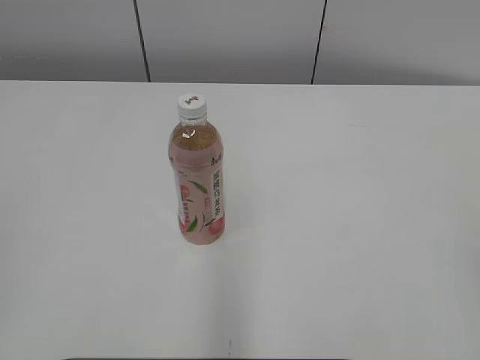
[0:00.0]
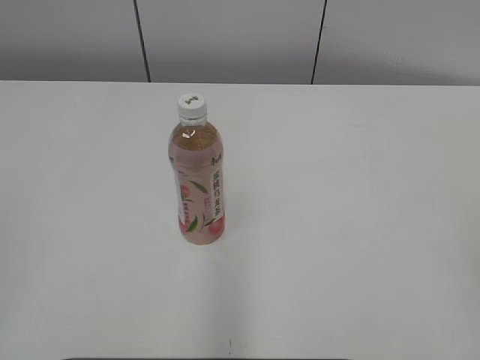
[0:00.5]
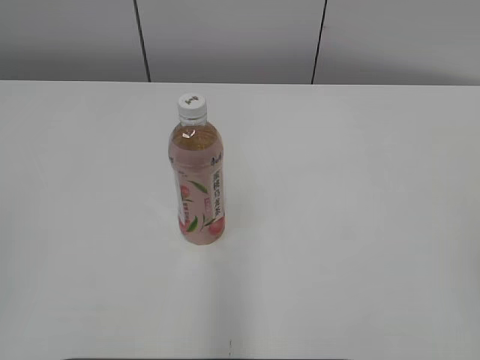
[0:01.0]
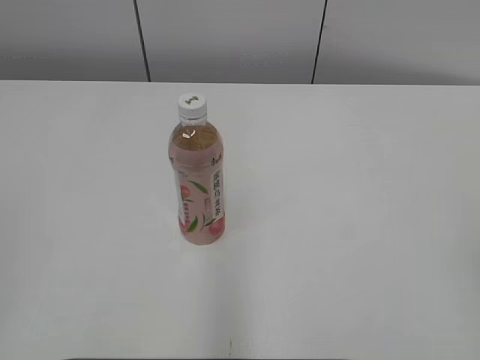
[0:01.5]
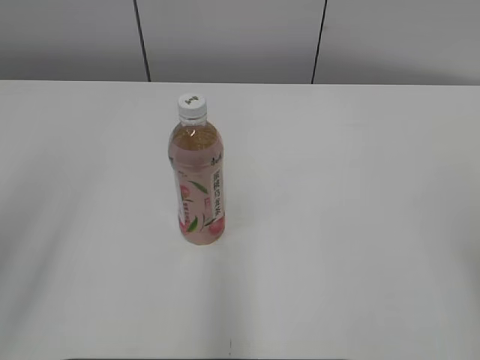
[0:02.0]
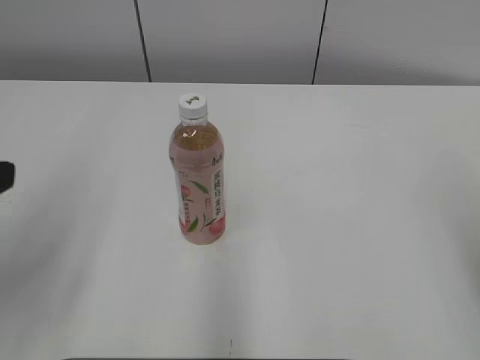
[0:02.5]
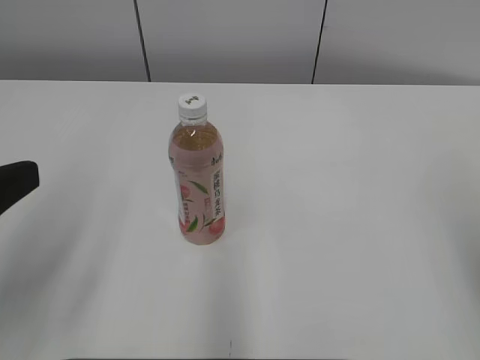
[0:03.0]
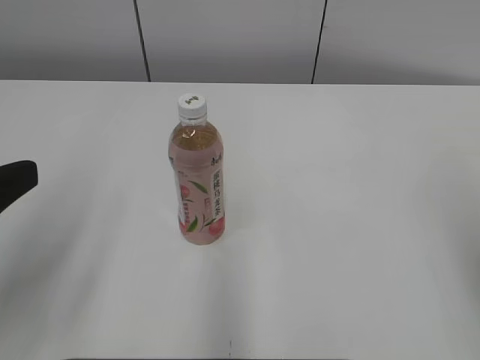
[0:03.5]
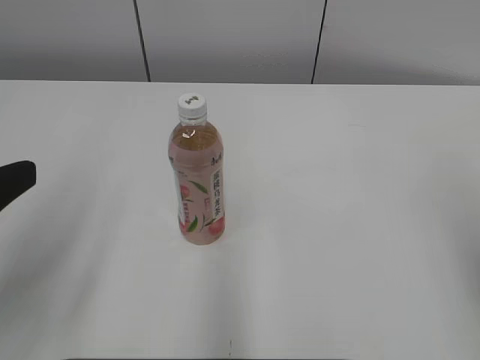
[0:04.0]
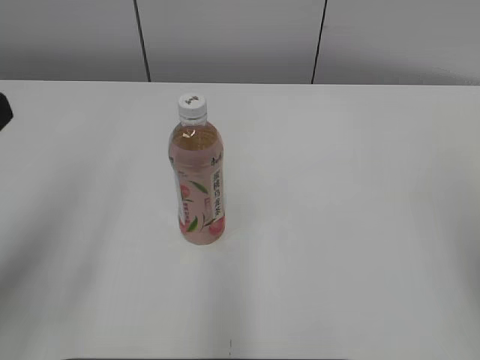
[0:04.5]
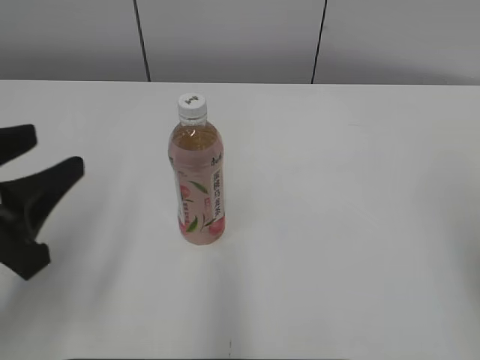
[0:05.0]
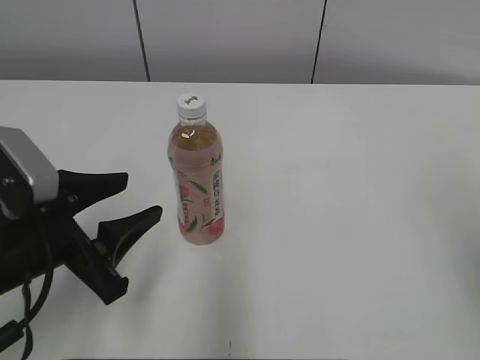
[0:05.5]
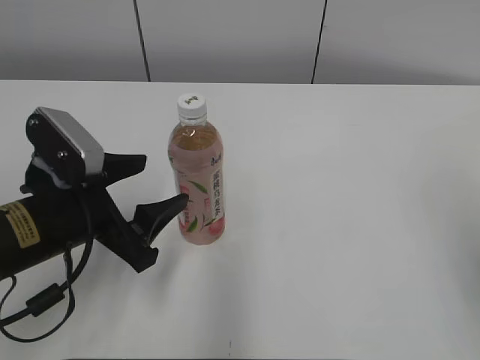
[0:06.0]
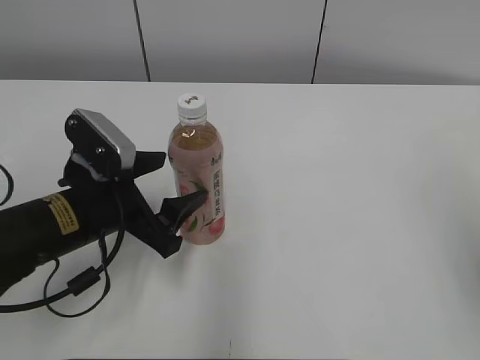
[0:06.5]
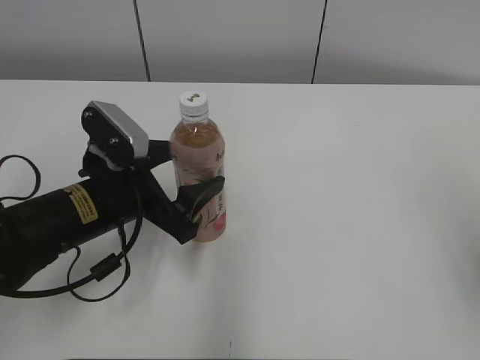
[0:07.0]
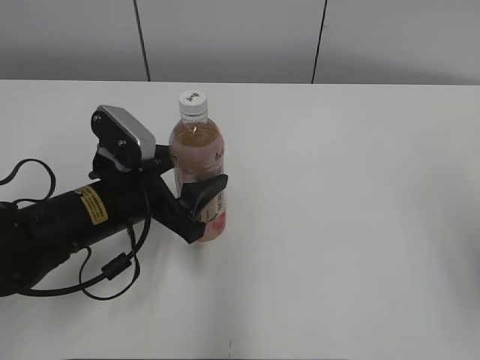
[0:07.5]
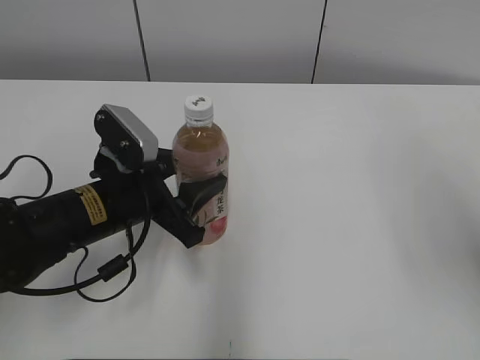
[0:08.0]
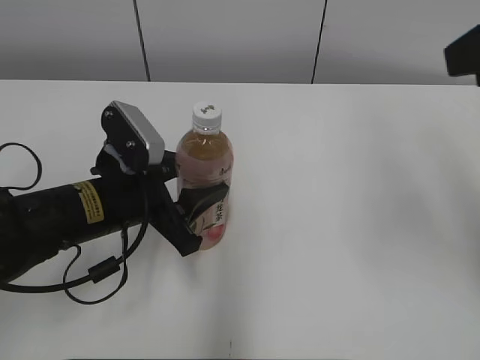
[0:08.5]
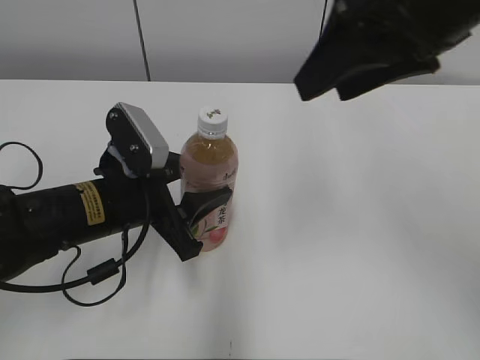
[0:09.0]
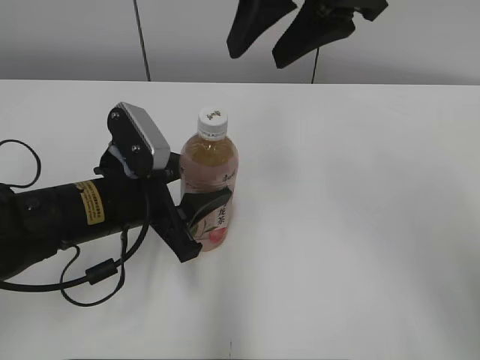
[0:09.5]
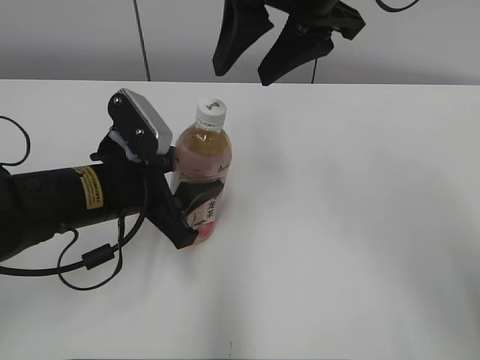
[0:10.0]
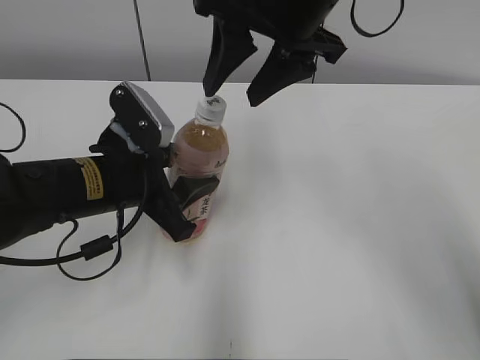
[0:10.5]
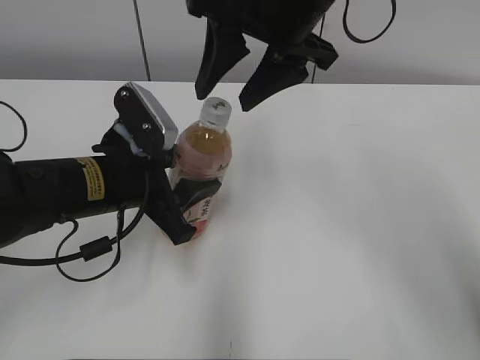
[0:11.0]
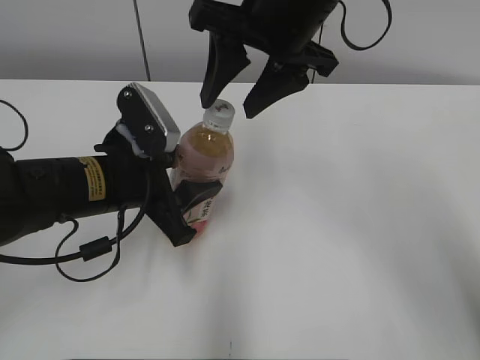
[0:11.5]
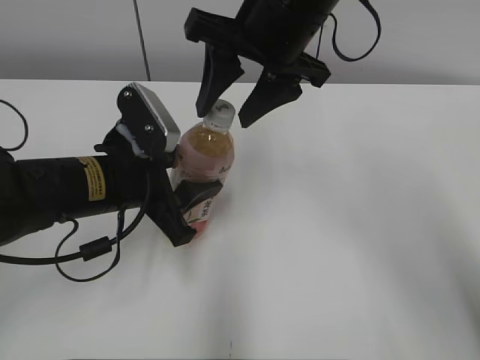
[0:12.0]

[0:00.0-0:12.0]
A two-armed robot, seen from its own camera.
Step, 0:00.0 to 0:07.5: Grab the Peach Oolong Tea with the left hand.
0:02.0 to 0:04.0: The left gripper heads downward, covering about 5 cm.
0:04.0 to 0:06.0: The left gripper goes approximately 15 cm downward, forward and to the right.
0:06.0 to 0:08.0: The right gripper moves forward, some 5 cm, while the left gripper changes place by about 5 cm, and closes up.
0:08.0 to 0:10.0: The right gripper is displaced to the left and forward by some 25 cm.
0:10.0 to 0:12.0: The right gripper shifts by some 5 cm.

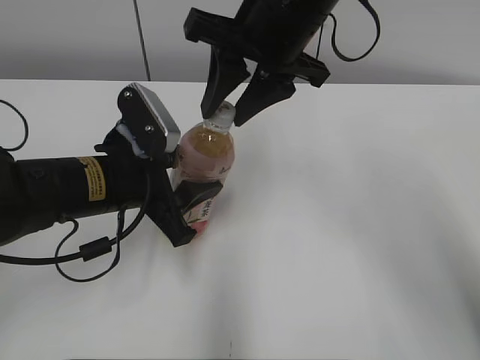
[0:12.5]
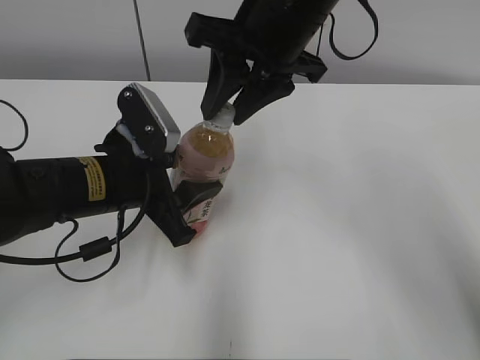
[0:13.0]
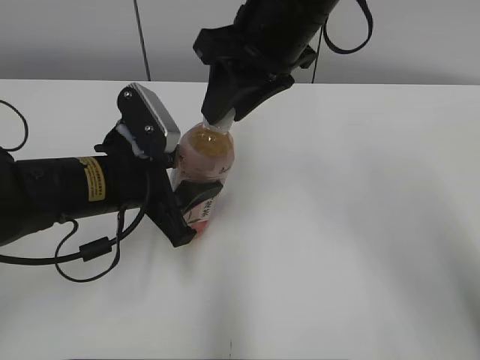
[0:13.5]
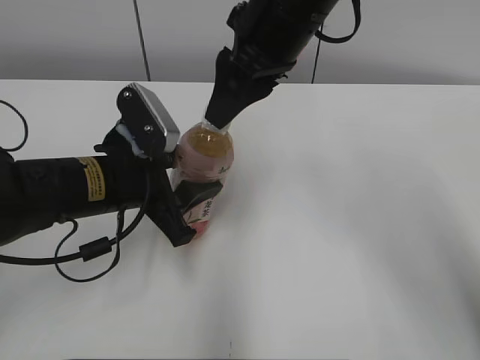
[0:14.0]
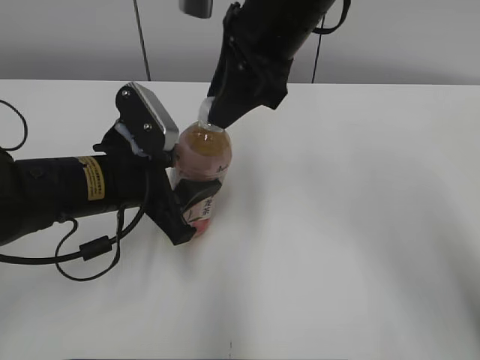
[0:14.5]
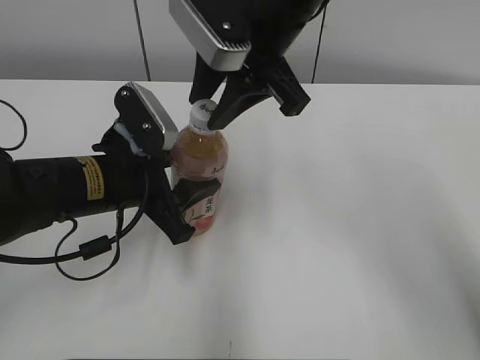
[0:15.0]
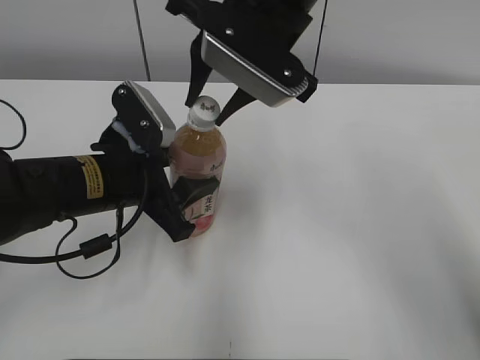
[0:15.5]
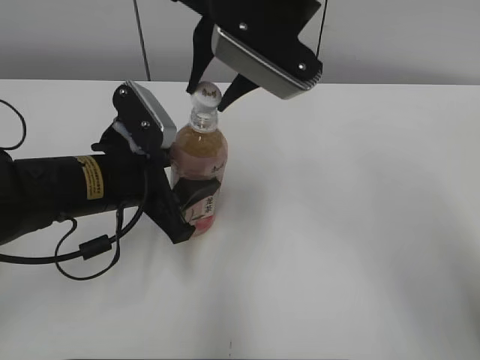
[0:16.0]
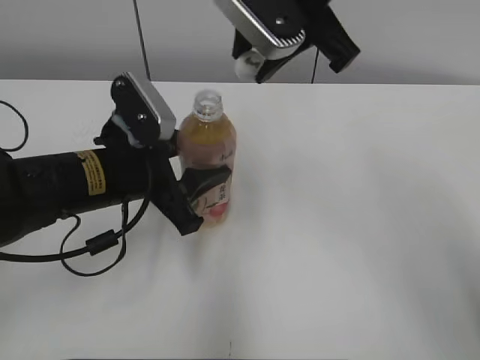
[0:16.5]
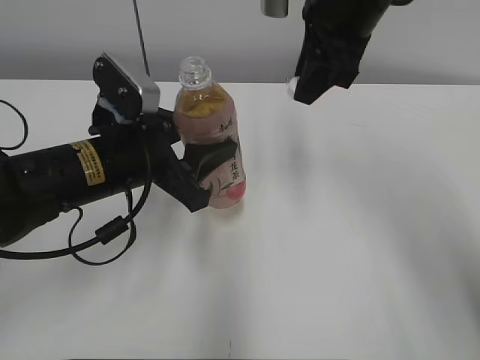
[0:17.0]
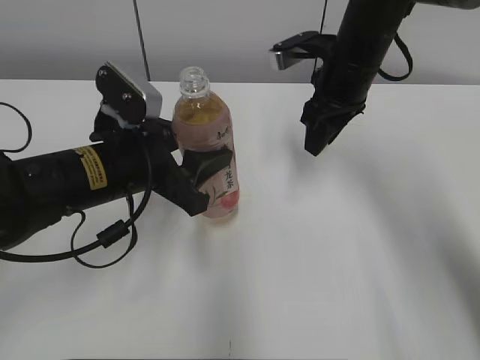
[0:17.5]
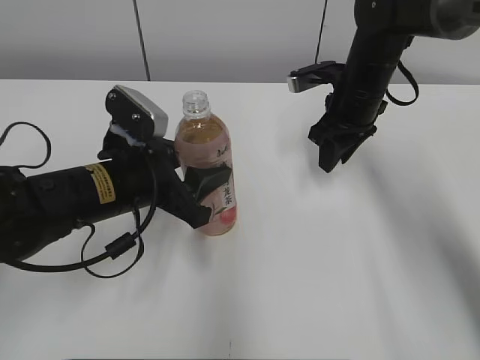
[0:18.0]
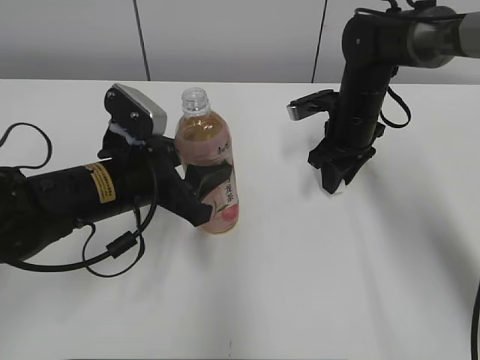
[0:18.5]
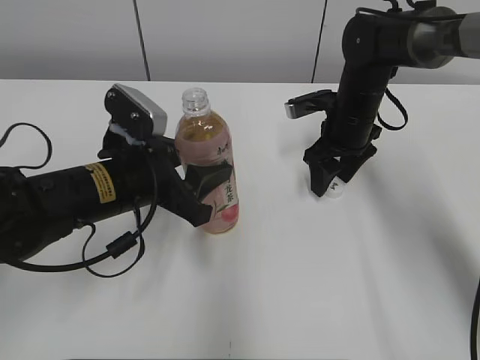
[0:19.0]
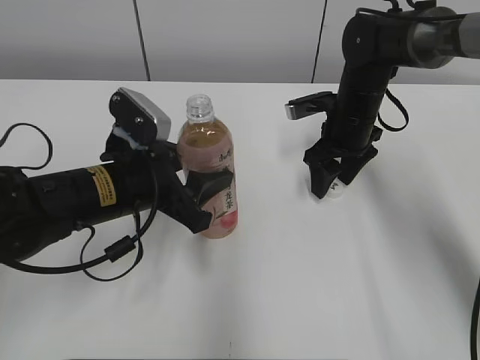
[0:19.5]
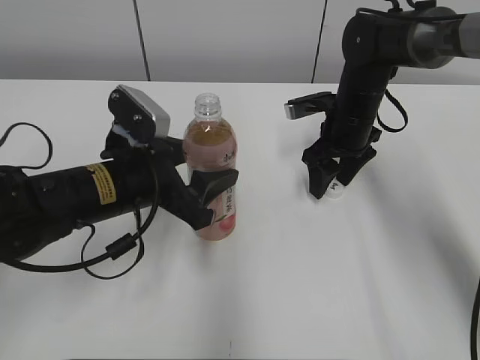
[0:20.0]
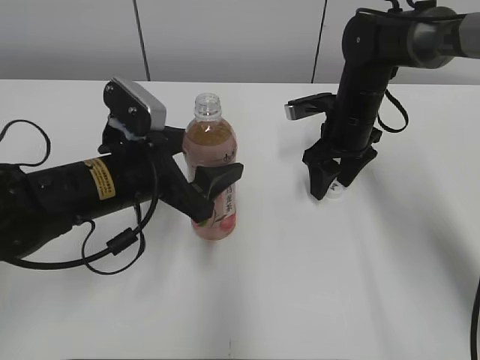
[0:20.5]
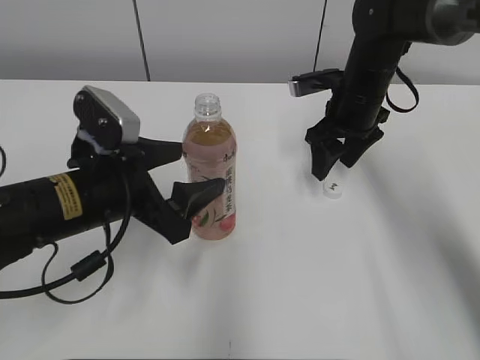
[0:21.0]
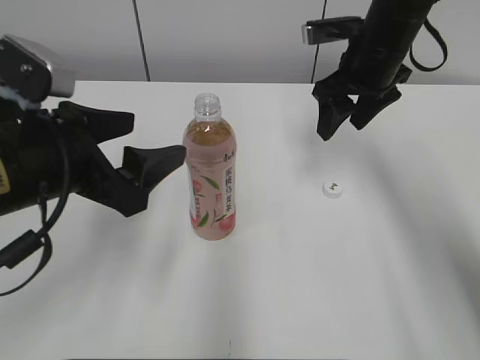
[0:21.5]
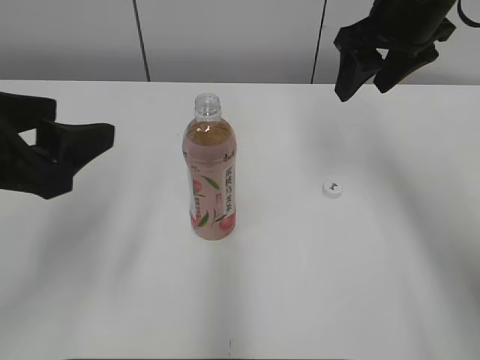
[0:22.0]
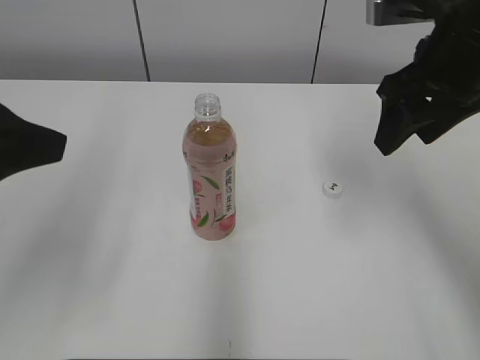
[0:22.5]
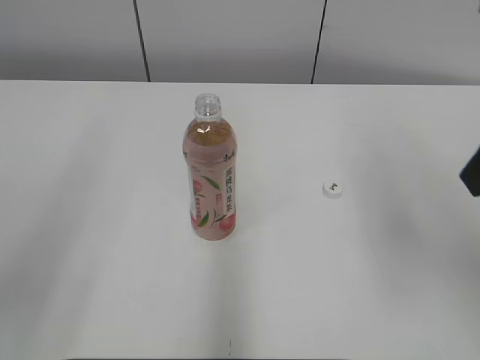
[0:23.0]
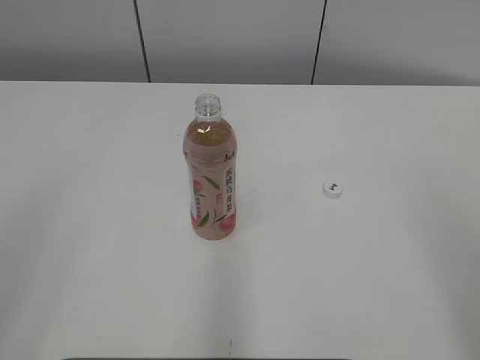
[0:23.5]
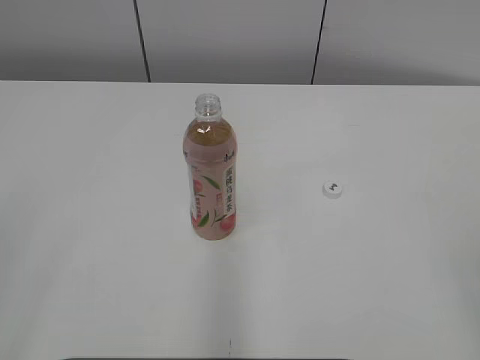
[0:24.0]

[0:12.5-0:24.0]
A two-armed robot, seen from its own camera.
Step, 0:12.5 to 0:18.5: Place the bottle cap on the right.
Step, 0:19.0 to 0:20.0: Place the Peach Oolong Tea with the left hand.
0:16.5 to 0:18.5: The right gripper is displaced downward, to the right and forward by approximately 25 cm.
0:18.5 to 0:20.0: The right gripper opens up.
0:20.0 to 0:22.0: The left gripper goes some 15 cm upward, backward and to the left. Meanwhile the right gripper heads upward, covering about 20 cm.
0:22.0 to 0:24.0: The left gripper moves backward and to the left, approximately 20 cm. The right gripper goes approximately 40 cm backward.

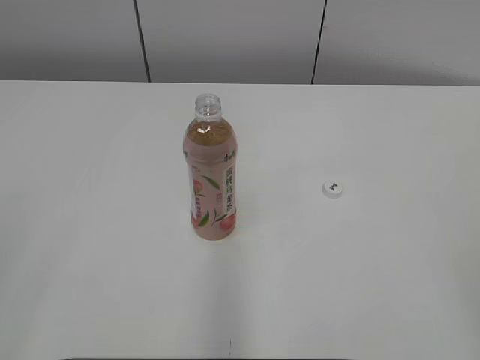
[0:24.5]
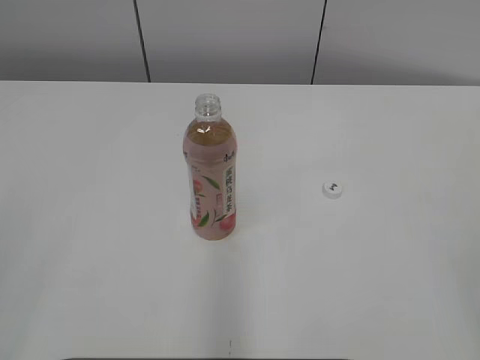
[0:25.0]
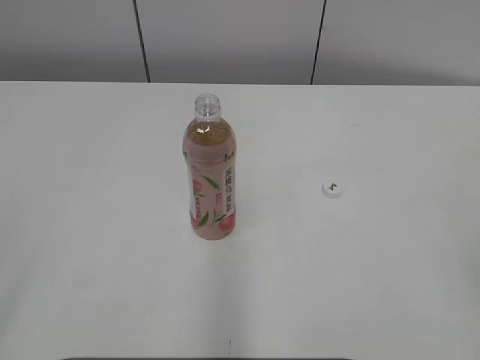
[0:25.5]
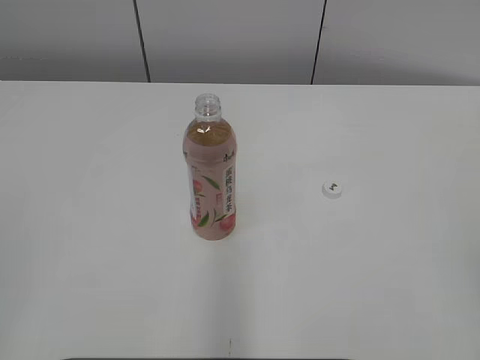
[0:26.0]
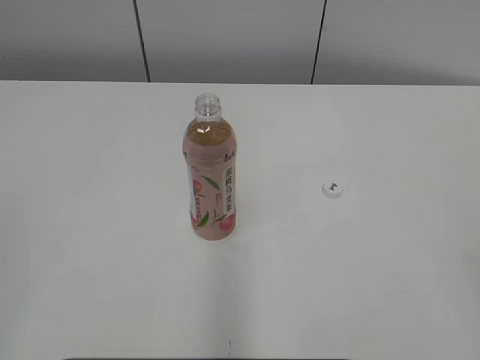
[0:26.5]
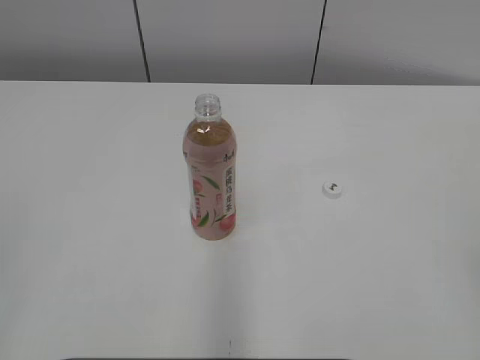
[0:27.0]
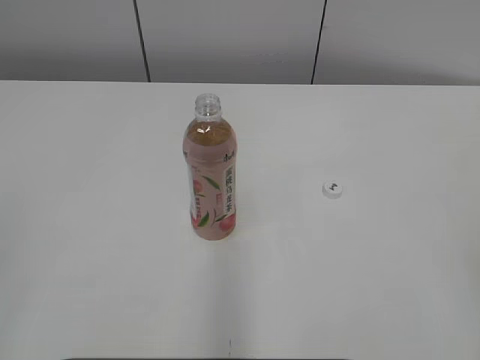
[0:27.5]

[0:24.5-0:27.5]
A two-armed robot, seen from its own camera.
0:26.0 to 0:27.5: The two grippers keep their place.
